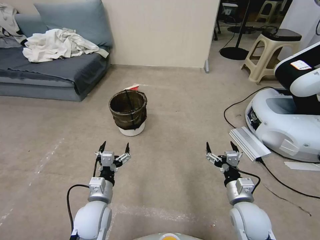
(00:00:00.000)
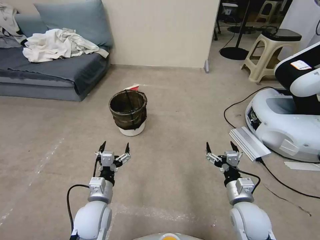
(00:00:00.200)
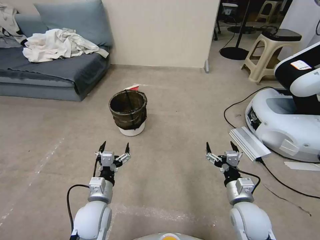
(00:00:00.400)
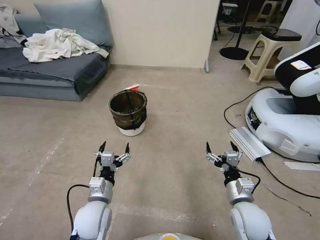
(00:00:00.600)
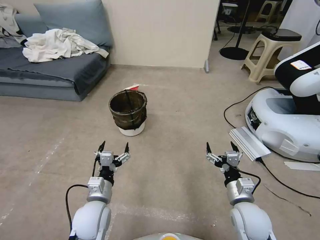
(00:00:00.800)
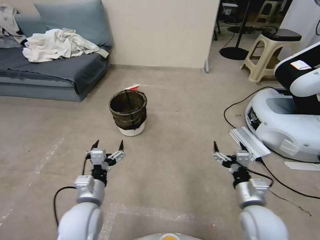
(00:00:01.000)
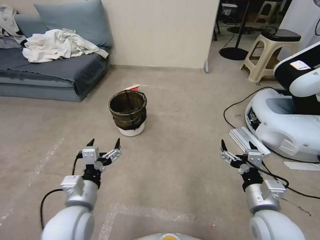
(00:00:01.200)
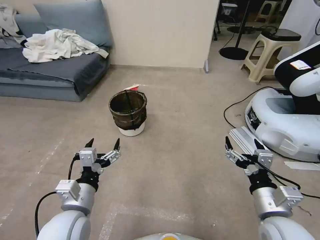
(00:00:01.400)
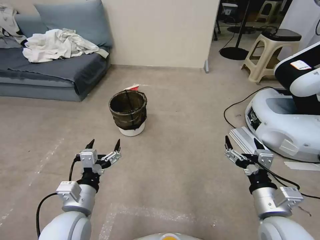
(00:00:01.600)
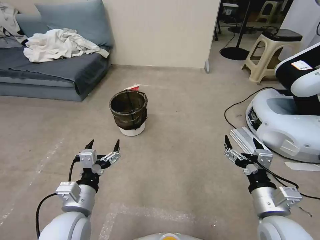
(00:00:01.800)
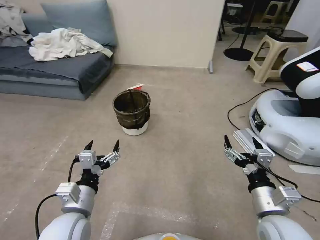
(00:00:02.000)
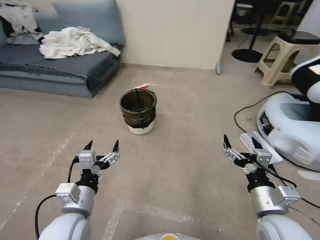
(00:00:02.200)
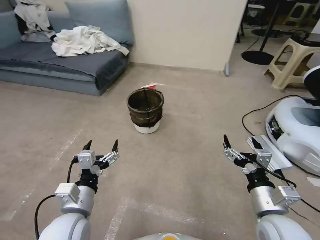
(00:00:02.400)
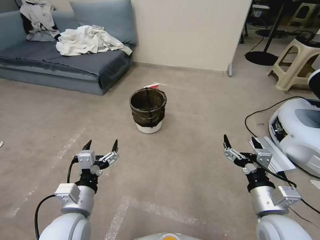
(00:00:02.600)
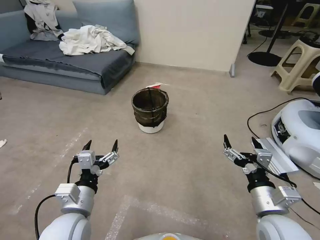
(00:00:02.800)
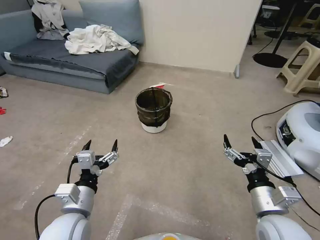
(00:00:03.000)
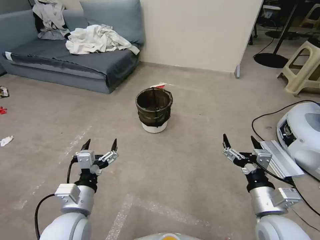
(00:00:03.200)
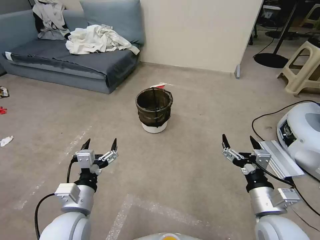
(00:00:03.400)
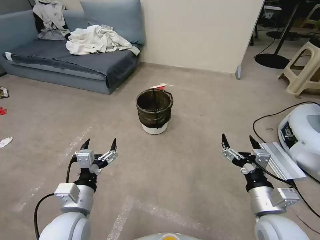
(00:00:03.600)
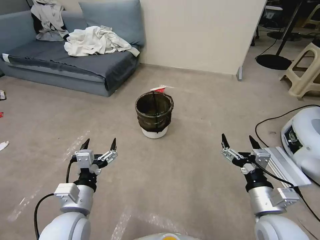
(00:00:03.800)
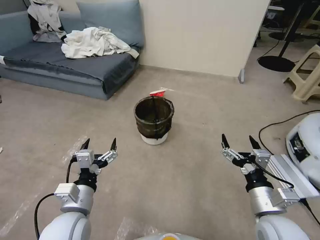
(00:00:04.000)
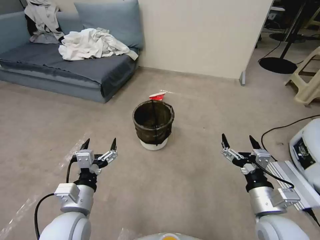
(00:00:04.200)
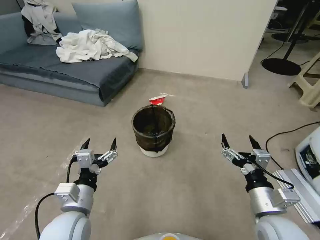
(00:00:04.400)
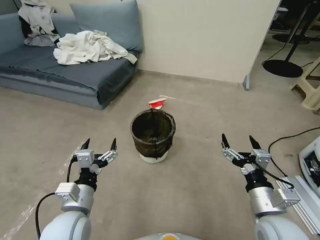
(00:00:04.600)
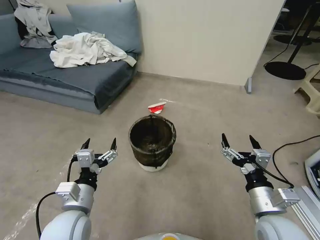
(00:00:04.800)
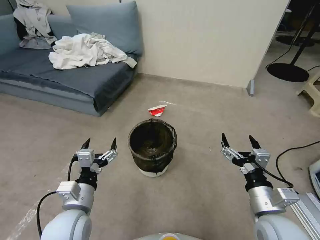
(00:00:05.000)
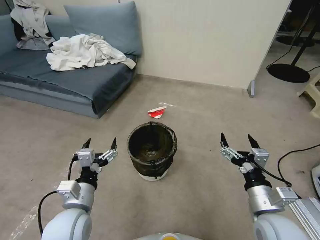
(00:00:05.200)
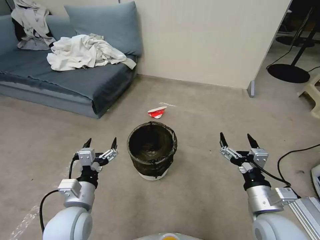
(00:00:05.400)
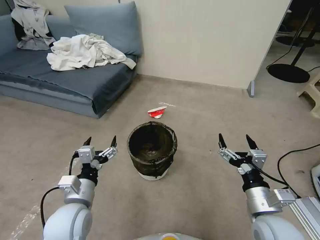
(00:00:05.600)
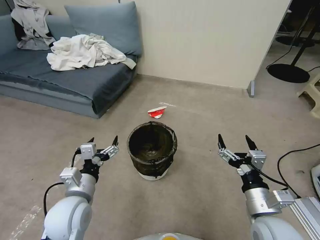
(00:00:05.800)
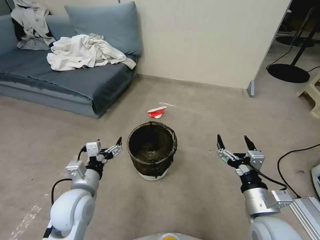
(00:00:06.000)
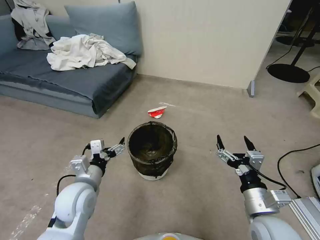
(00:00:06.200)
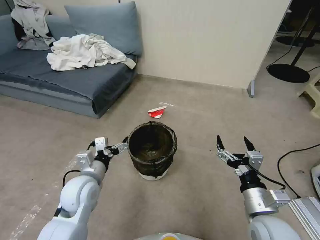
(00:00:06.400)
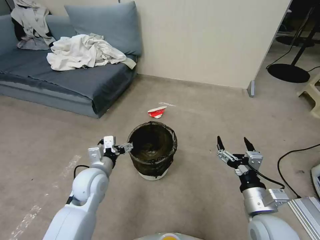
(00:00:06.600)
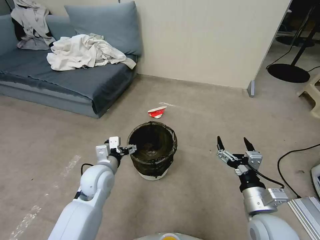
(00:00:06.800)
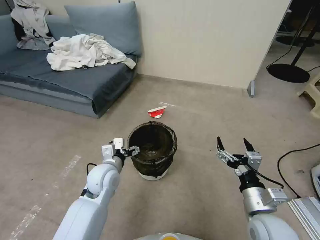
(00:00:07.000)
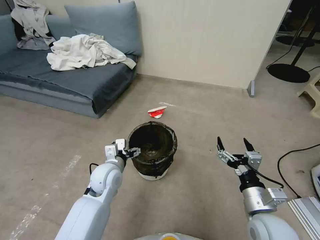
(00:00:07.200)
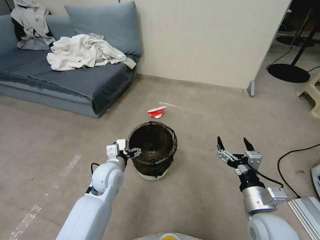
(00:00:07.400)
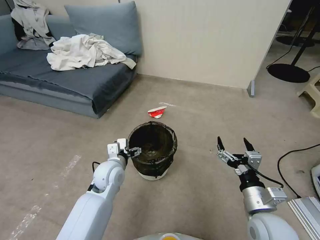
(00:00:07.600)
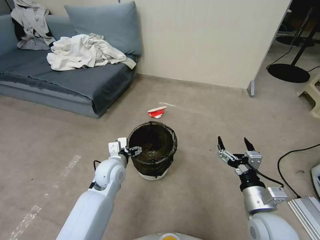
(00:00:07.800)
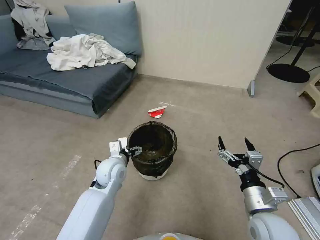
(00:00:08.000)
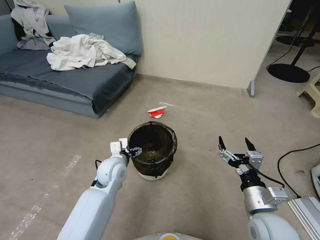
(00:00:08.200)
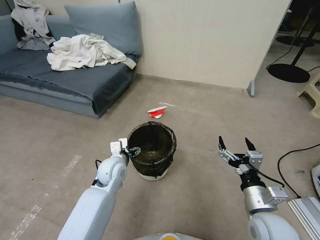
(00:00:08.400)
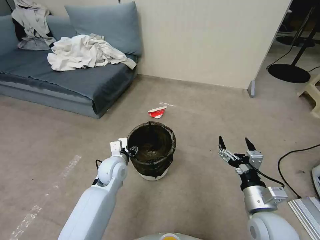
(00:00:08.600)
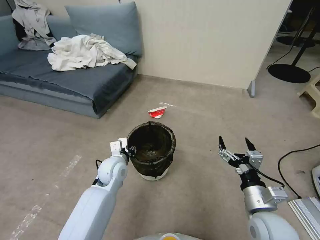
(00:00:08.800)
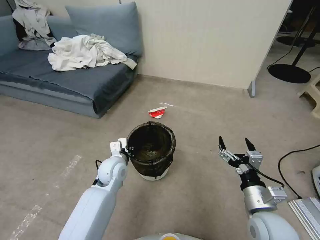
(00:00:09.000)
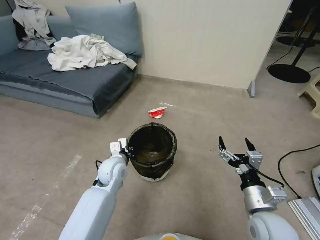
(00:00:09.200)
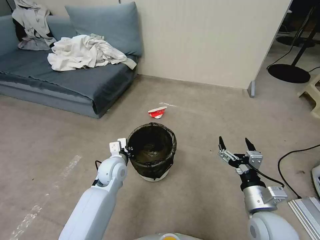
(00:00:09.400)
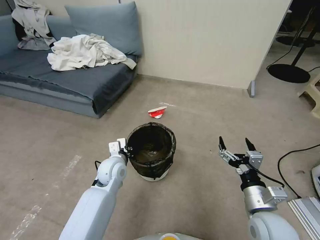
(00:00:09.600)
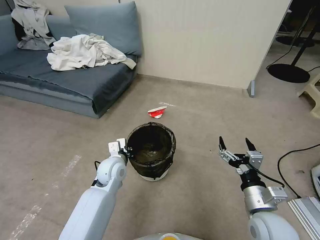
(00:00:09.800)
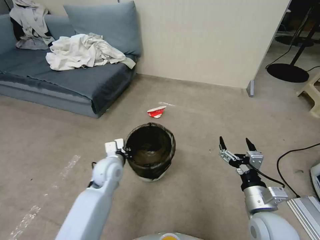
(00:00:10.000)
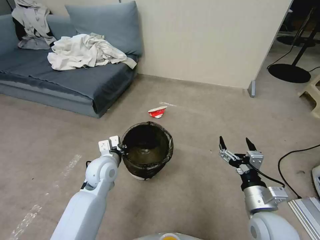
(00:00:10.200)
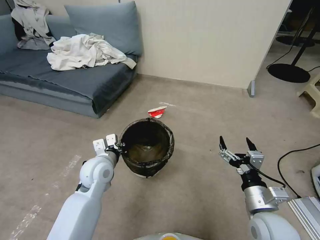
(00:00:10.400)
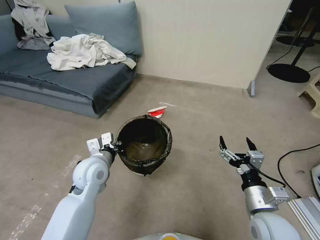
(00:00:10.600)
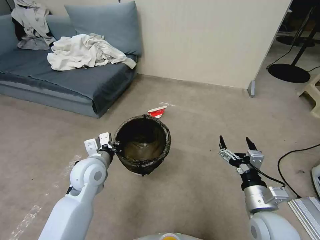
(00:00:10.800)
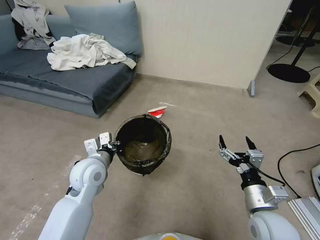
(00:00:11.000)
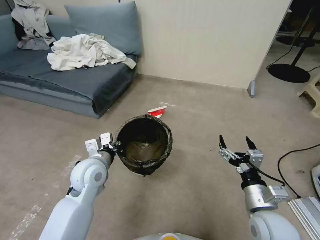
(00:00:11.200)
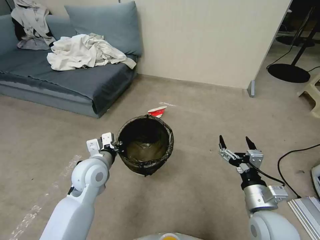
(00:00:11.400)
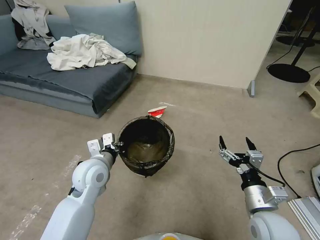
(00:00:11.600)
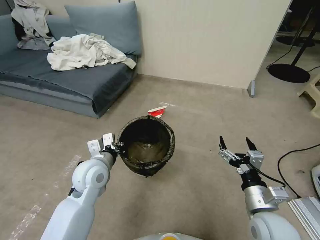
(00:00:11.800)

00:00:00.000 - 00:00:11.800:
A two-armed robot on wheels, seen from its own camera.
Task of the whole recording: Pick up the trash can from the floor.
00:00:04.400 - 00:00:06.000: The left gripper goes about 5 cm forward.
00:00:06.000 - 00:00:07.400: The left gripper is displaced forward and to the right by some 10 cm.
00:00:07.400 - 00:00:08.800: The left gripper closes up.
00:00:08.800 - 00:00:10.400: The left gripper goes roughly 5 cm upward, and closes.
00:00:10.400 - 00:00:11.800: The grippers move only a little.

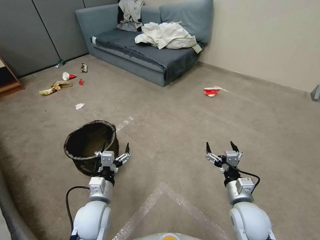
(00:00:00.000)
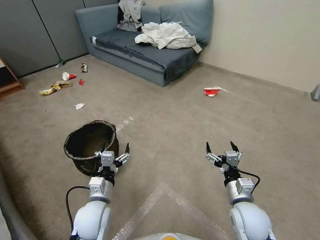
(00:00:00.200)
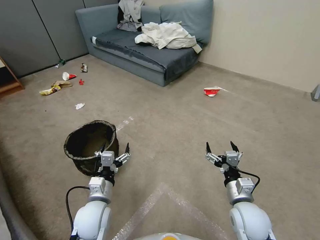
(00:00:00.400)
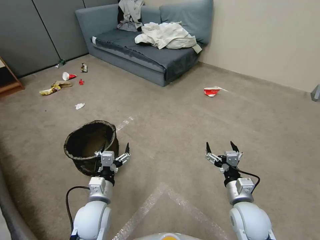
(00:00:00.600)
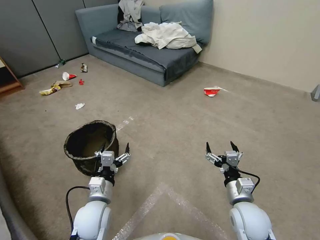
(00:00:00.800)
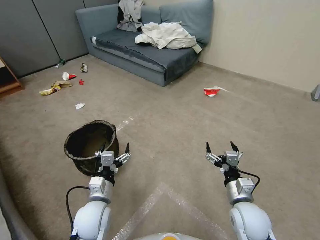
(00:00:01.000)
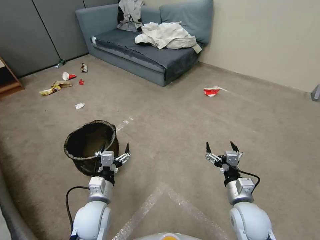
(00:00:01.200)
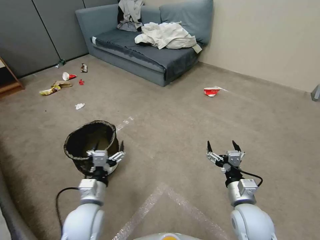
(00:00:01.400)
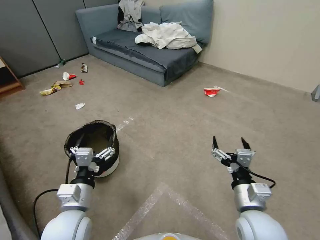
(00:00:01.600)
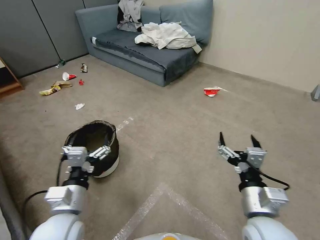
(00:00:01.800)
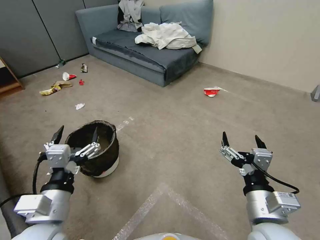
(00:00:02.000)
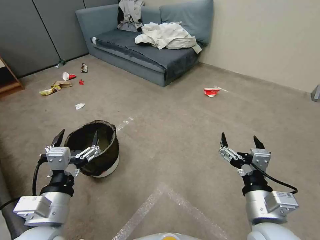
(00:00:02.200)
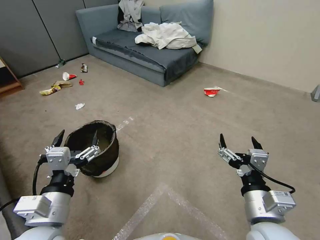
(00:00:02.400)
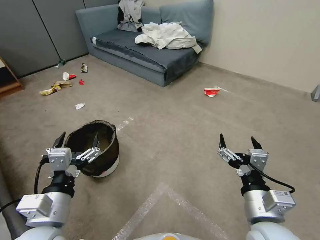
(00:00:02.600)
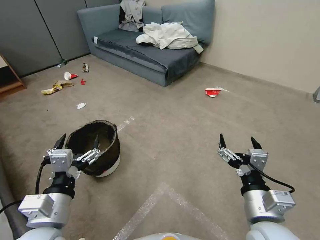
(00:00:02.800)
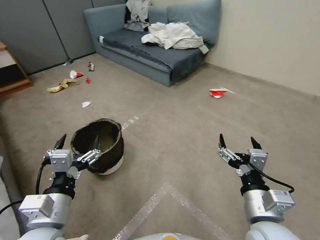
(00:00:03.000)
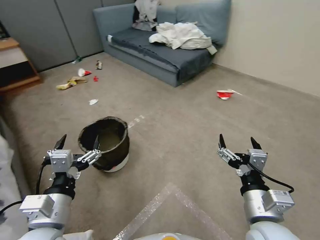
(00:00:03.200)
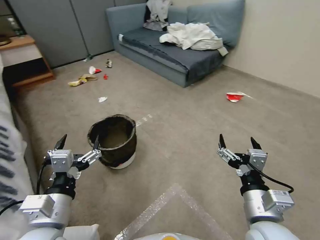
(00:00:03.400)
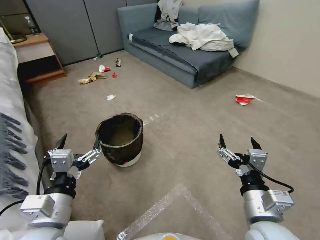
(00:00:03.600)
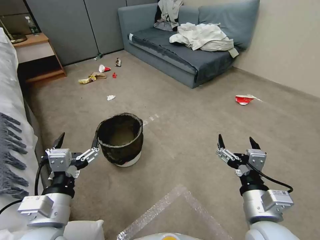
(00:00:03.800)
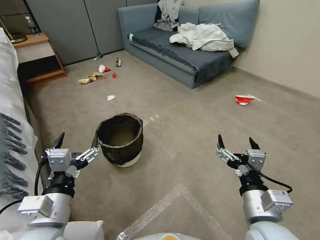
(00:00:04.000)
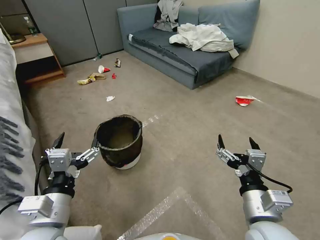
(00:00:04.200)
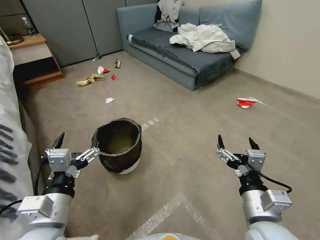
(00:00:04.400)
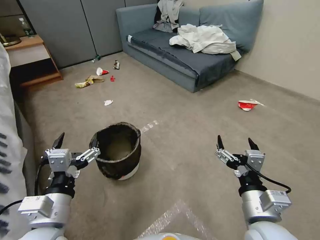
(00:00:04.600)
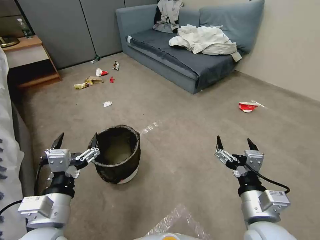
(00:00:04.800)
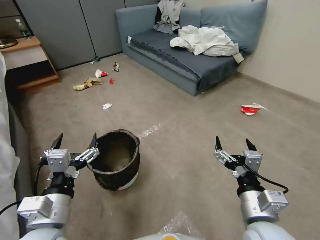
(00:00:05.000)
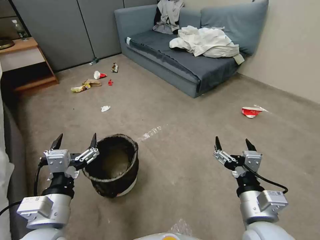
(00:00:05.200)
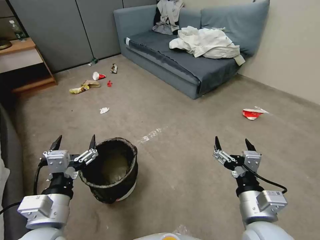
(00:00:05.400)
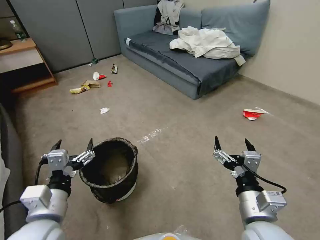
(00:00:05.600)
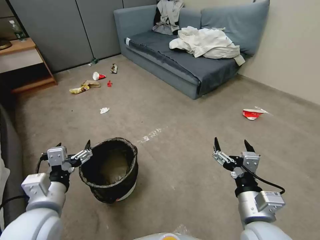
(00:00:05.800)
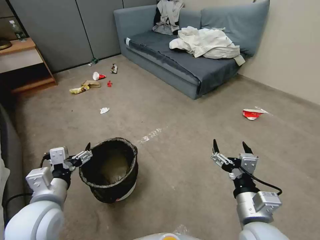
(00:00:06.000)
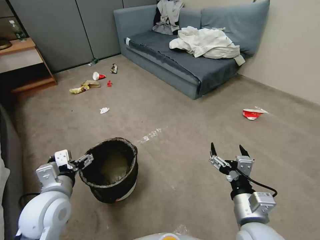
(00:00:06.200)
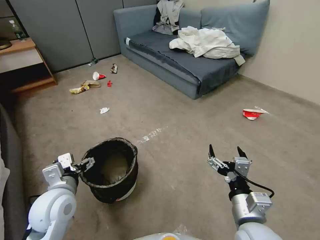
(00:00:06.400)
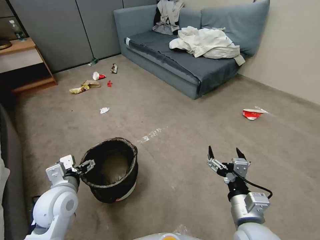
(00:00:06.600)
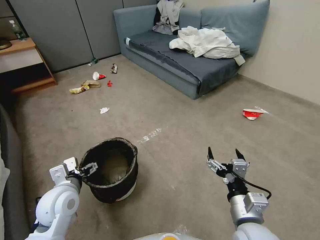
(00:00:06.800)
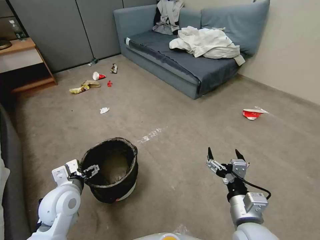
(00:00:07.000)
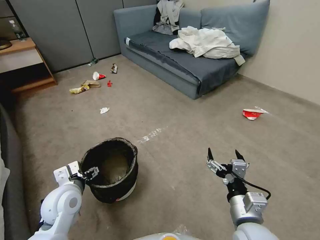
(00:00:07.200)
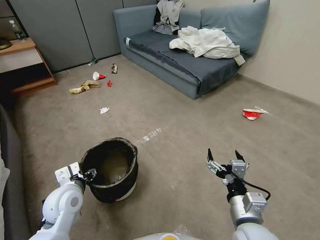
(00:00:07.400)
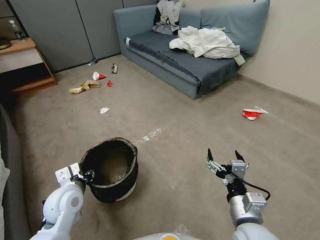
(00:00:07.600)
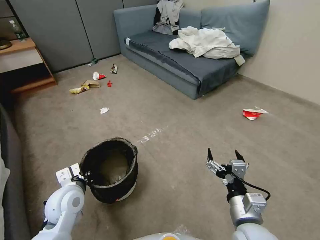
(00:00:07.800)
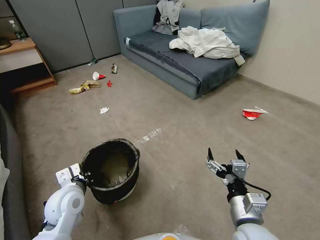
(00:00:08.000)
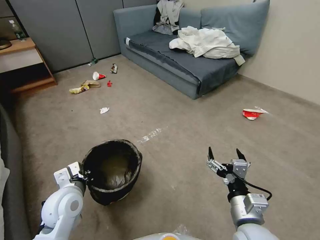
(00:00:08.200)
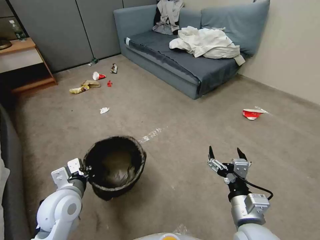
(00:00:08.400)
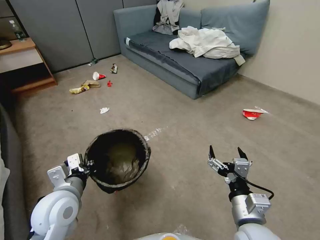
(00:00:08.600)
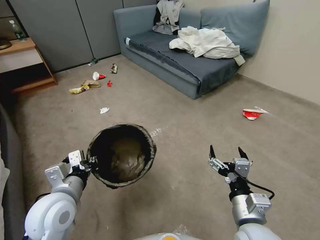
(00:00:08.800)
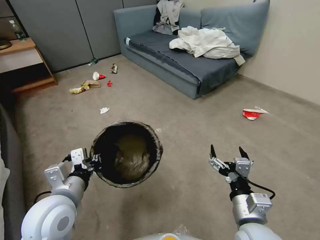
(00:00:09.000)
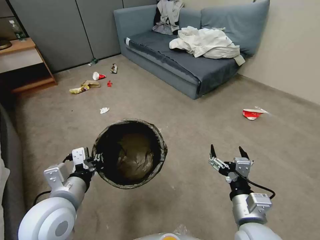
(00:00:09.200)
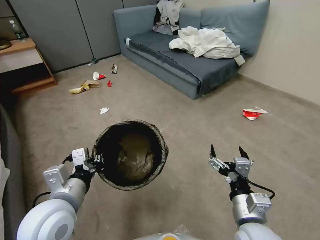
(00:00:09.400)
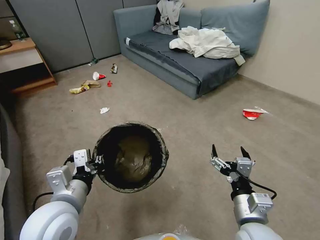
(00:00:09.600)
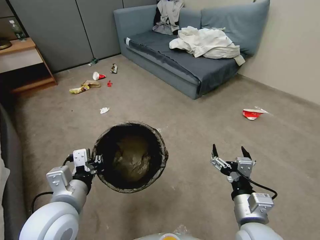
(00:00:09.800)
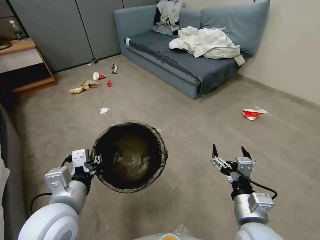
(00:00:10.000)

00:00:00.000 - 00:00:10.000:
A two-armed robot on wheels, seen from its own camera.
Task of the whole recording: Pick up the trash can from the floor.
00:00:01.400 - 00:00:02.800: Both grippers travel together upward and backward, roughly 10 cm.
00:00:05.800 - 00:00:07.200: The left gripper travels forward and downward by roughly 10 cm.
00:00:07.200 - 00:00:08.600: The left gripper closes up.
00:00:08.600 - 00:00:10.000: The left gripper heads upward, covering about 5 cm.
